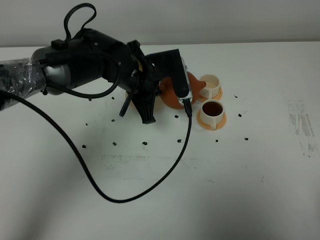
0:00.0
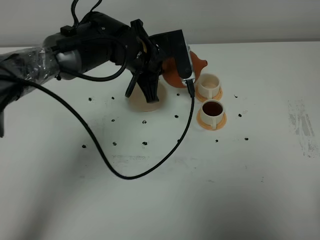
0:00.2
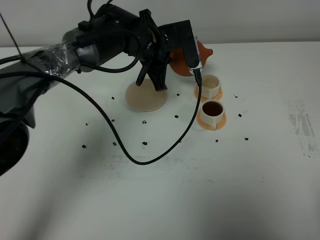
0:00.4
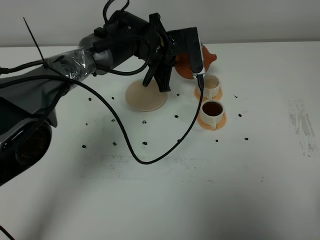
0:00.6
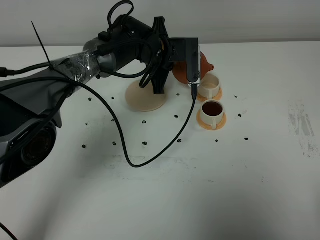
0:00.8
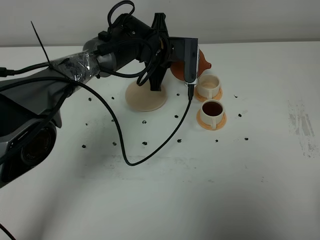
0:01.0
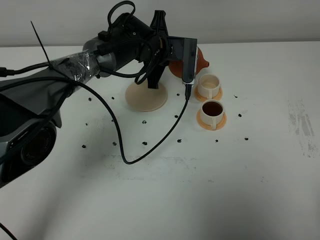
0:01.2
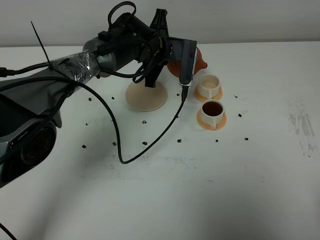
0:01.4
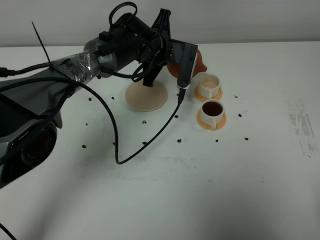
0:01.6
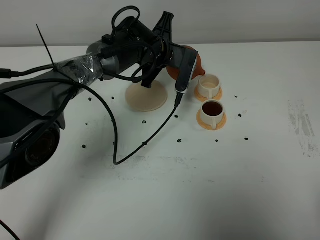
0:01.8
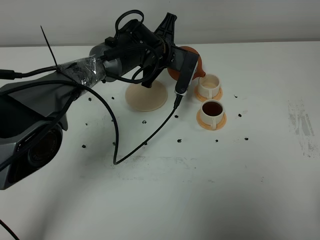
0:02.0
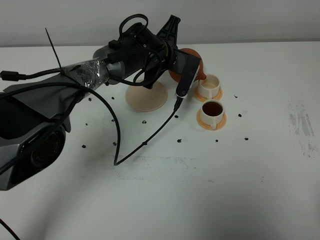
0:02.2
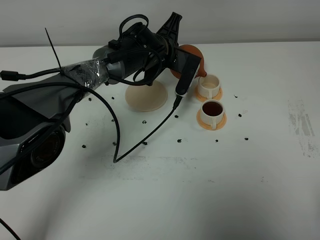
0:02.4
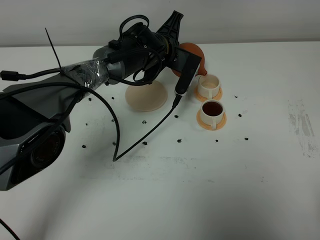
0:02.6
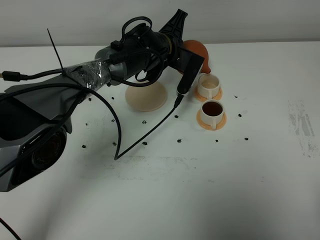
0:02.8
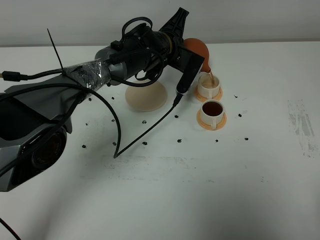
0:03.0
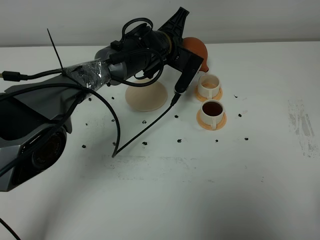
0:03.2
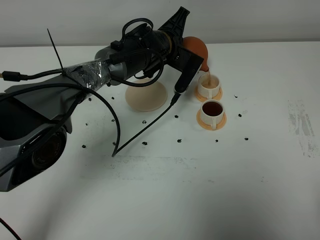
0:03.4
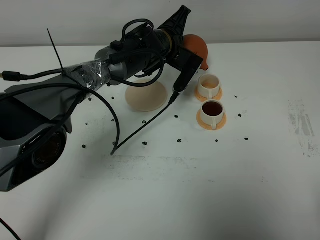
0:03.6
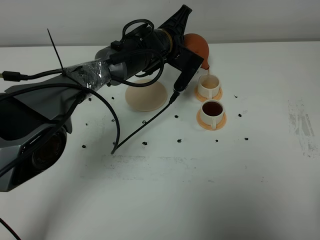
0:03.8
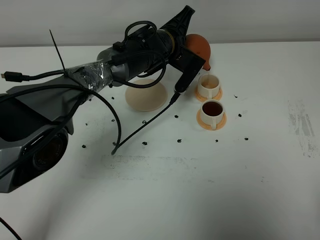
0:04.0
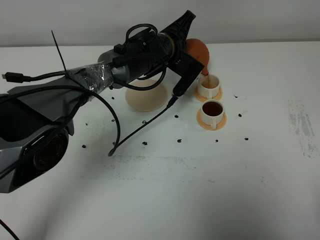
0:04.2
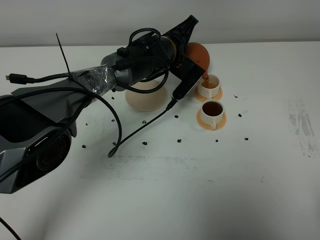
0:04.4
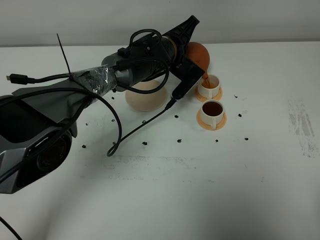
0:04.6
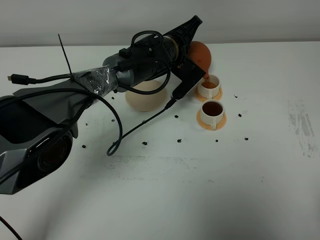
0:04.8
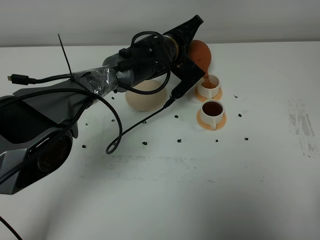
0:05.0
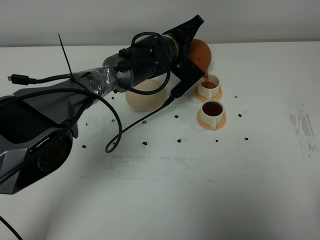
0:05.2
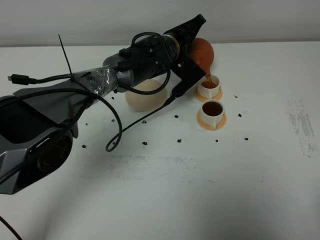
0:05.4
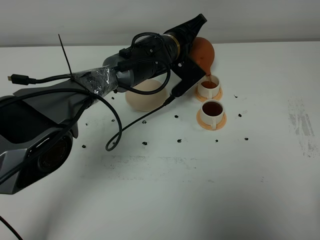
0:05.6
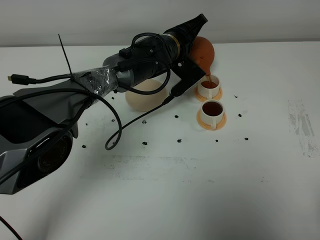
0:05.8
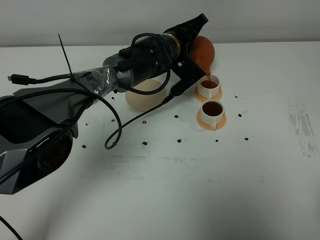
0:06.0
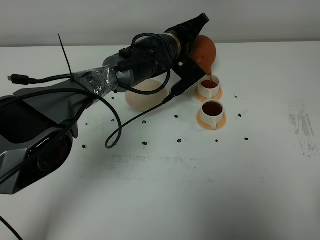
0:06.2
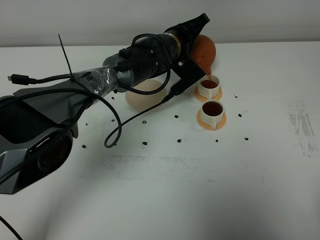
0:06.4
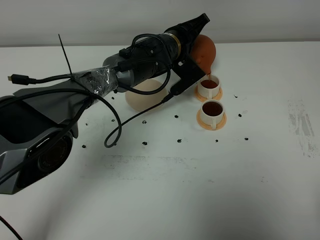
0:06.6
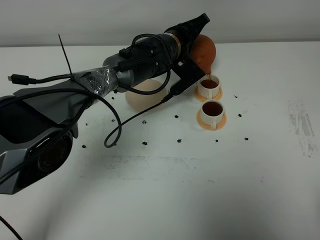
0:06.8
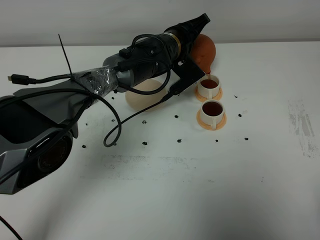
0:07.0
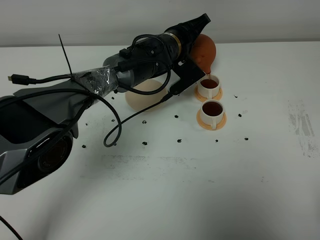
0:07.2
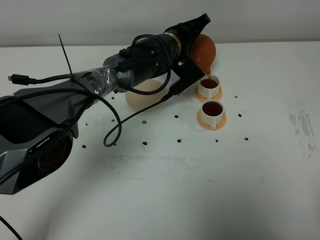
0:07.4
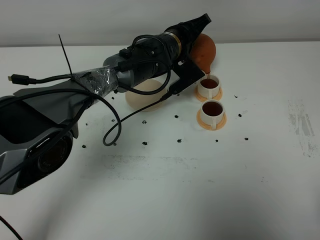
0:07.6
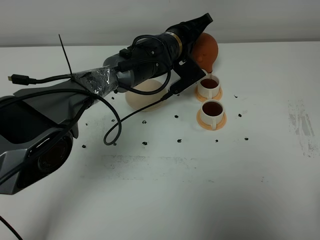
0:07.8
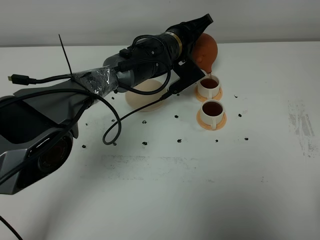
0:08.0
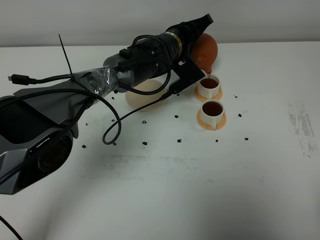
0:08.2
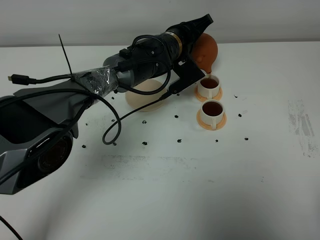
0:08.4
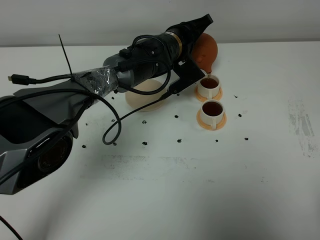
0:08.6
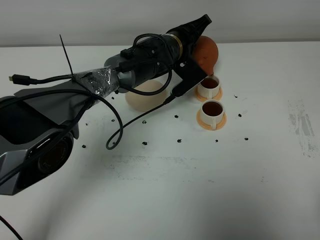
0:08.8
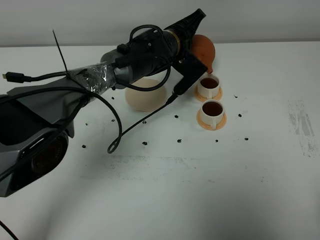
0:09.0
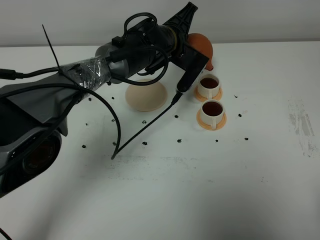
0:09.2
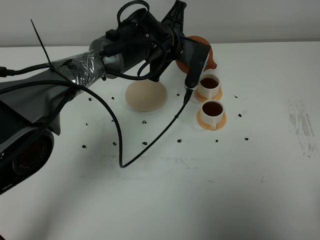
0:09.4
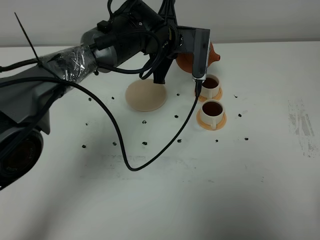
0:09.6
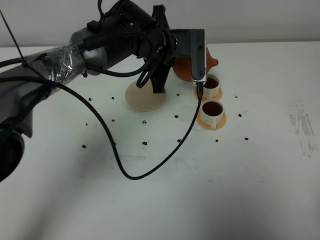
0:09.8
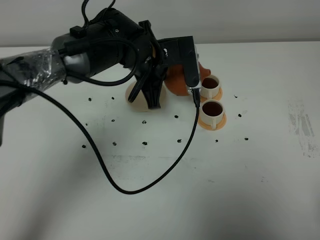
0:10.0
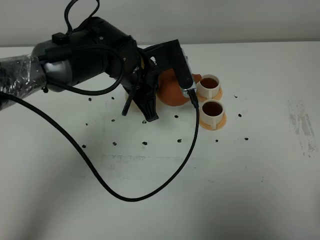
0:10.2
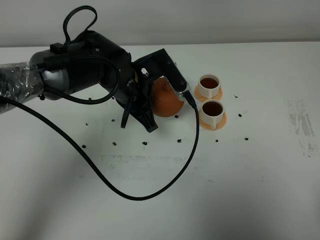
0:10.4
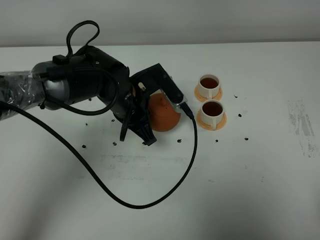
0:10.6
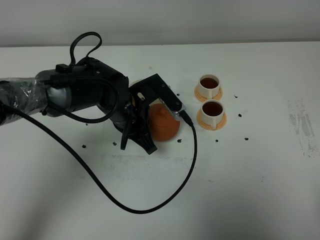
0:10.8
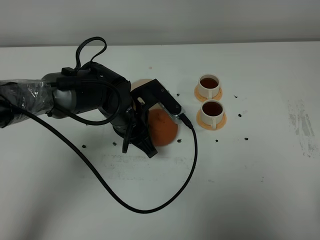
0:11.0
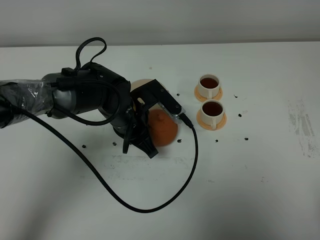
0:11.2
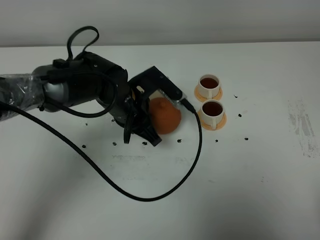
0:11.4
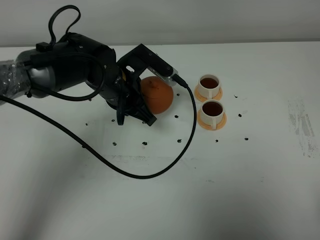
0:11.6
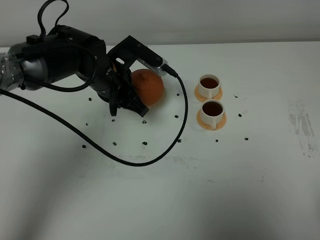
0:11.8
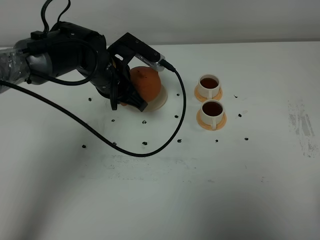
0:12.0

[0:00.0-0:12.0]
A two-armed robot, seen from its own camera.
Task of the whole recording: grasp the brown teapot and pour the tea into the two white teacups one by one, put the brown teapot back in its original place.
Step, 0:00.0 to 0:09.0: Pour tea into the teacup with the left gripper.
0:00.0 to 0:01.6: The left gripper heads forward, covering approximately 10 cm.
0:01.6 to 0:03.0: The grippers make only small movements.
0:03.0 to 0:04.4: The grippers make only small movements.
0:04.4 to 0:06.0: The grippers move only a little.
0:06.0 to 0:07.6: The two grippers keep their place.
0:07.6 to 0:09.0: There are only small adjustments of the grippers.
0:09.0 to 0:10.4: The left gripper travels backward and to the left by about 15 cm.
0:10.4 to 0:12.0: The left gripper shifts by some 5 cm.

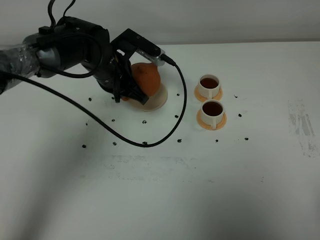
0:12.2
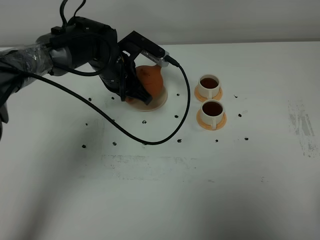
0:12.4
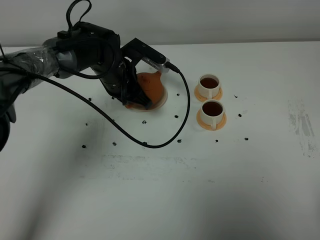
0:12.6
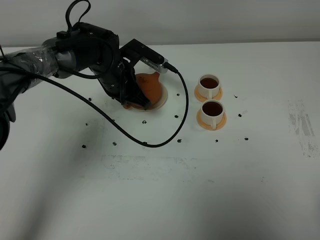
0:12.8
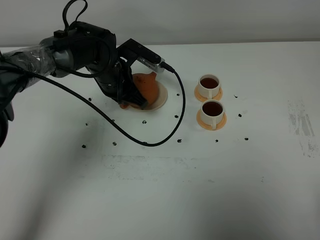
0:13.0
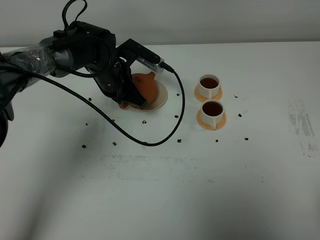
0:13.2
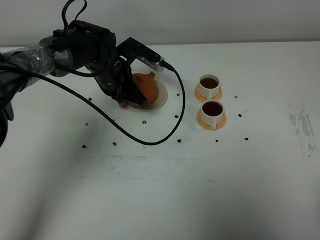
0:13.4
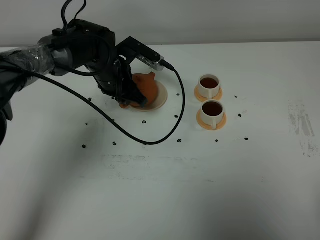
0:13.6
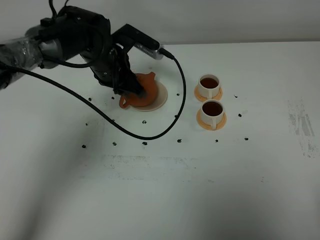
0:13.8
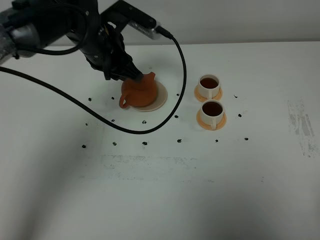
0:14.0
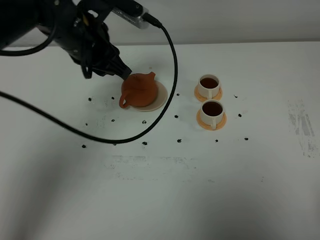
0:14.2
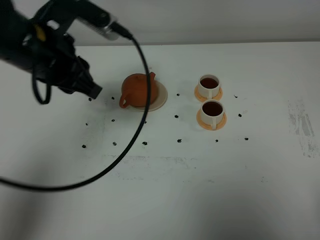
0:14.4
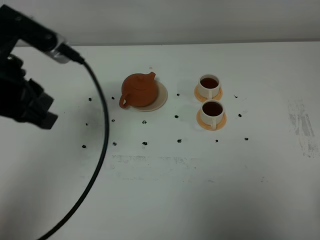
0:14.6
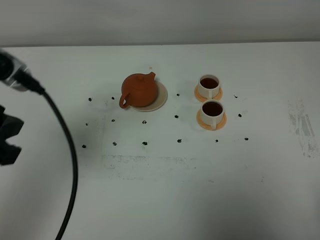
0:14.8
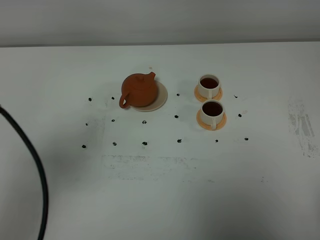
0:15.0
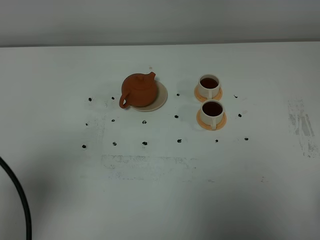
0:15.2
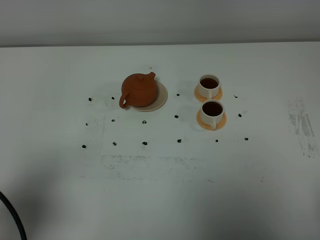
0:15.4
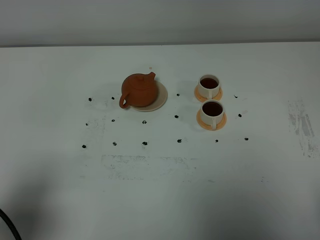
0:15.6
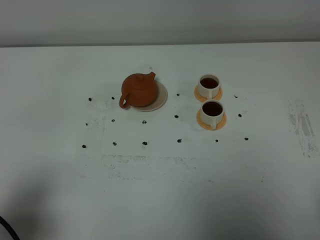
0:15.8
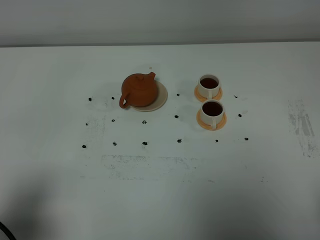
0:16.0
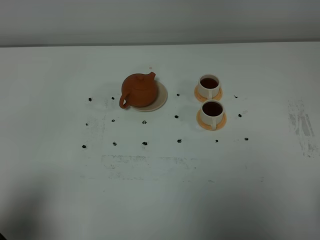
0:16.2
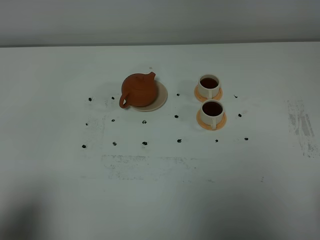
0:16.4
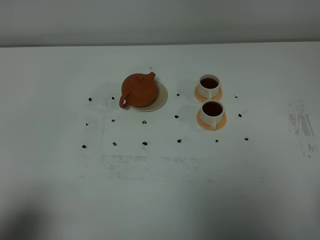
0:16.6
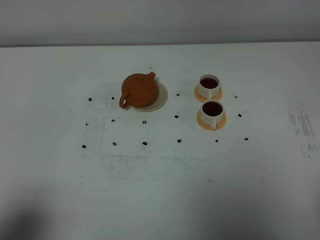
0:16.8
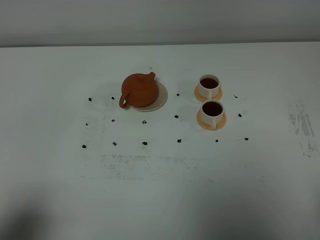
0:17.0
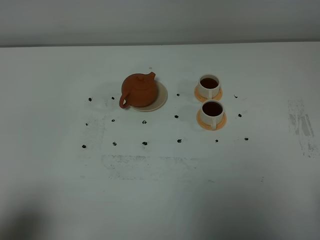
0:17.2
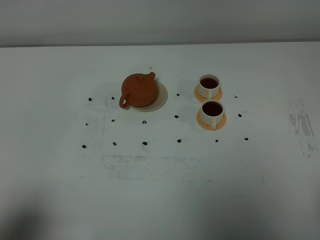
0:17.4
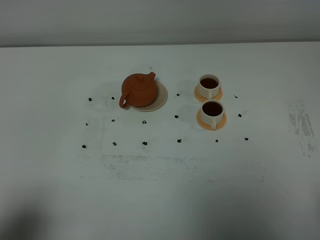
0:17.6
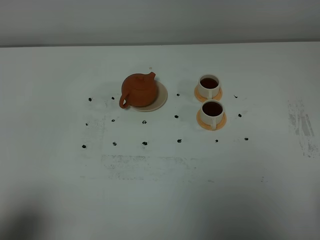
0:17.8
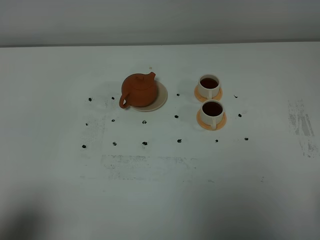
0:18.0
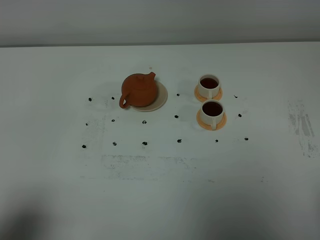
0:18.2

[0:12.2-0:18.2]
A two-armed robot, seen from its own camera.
Task of the whole recording: grasp the brown teapot and pour the tea into the two white teacups one by one, put the brown teapot back in its original place.
0:12.2 to 0:13.8: The left gripper opens its fingers.
0:13.8 to 0:15.2: The left gripper moves backward and to the left, about 35 cm.
0:15.2 to 0:16.6: The left gripper shifts about 10 cm backward and downward.
0:16.6 to 0:18.2: Both grippers stay put.

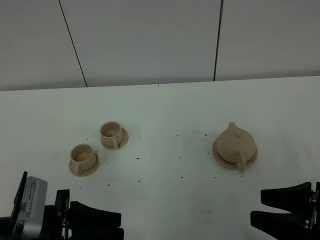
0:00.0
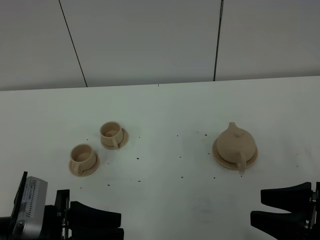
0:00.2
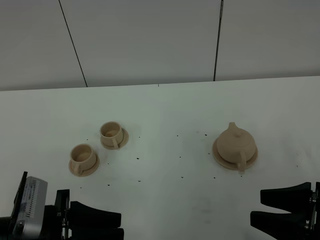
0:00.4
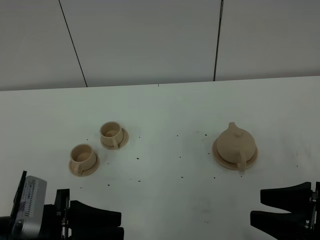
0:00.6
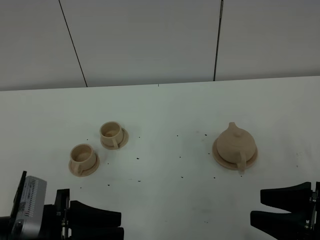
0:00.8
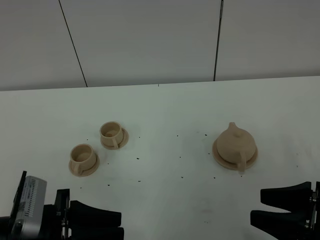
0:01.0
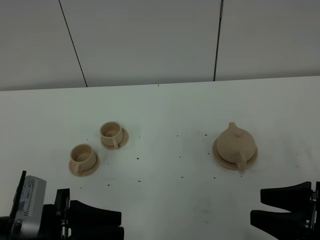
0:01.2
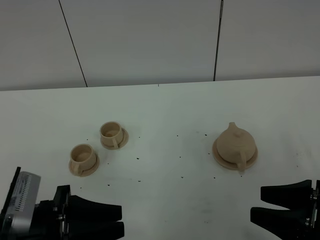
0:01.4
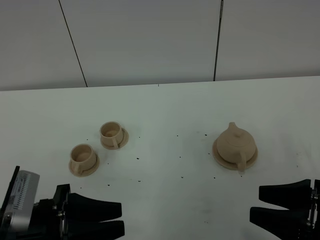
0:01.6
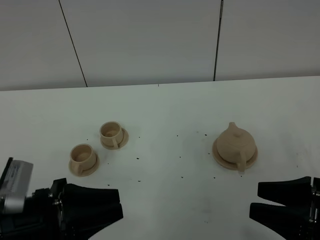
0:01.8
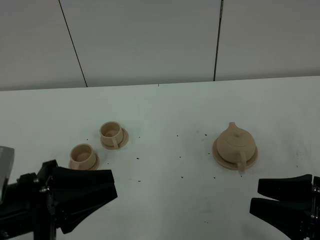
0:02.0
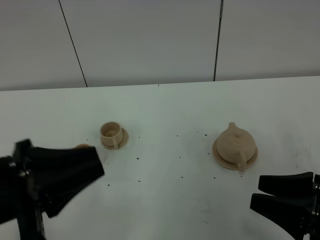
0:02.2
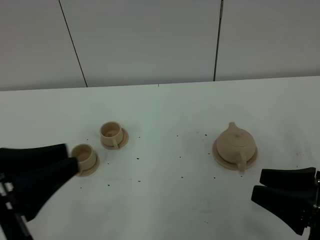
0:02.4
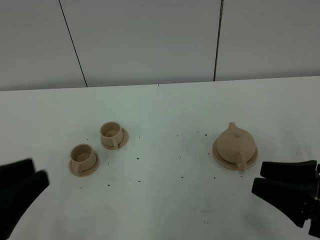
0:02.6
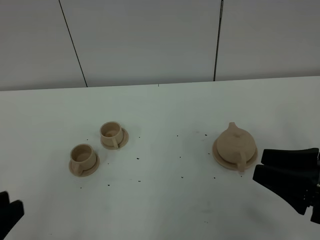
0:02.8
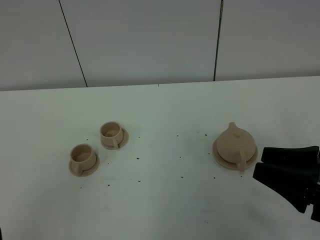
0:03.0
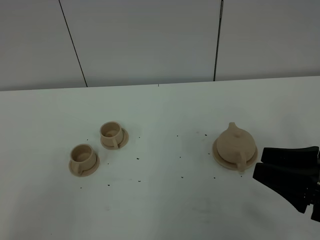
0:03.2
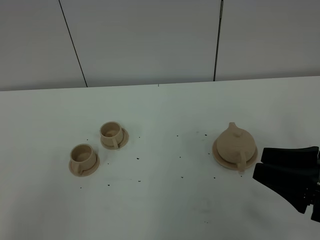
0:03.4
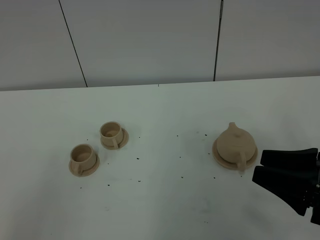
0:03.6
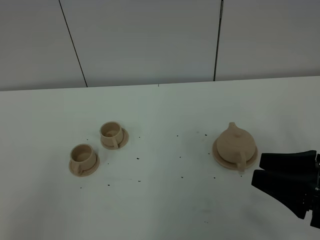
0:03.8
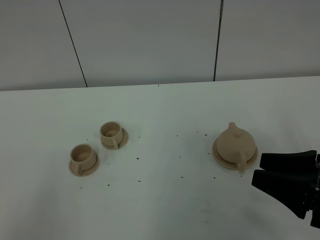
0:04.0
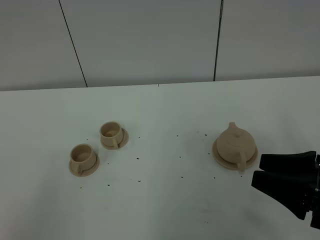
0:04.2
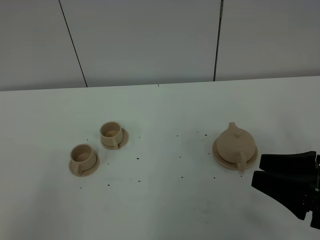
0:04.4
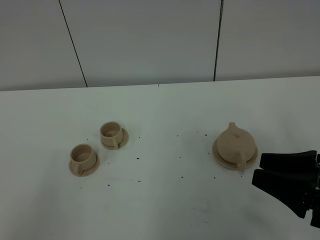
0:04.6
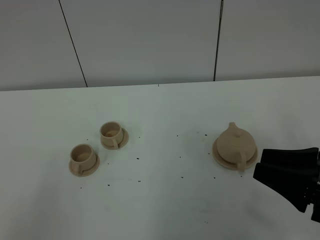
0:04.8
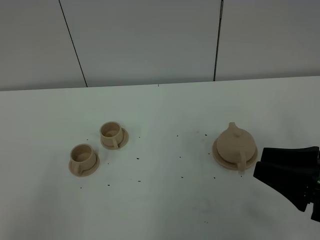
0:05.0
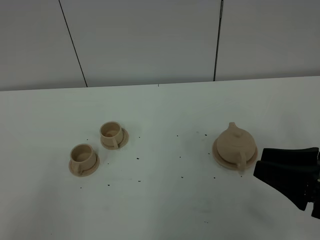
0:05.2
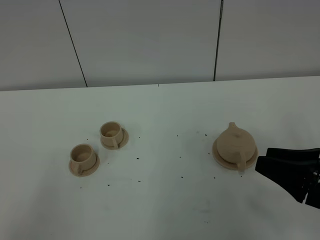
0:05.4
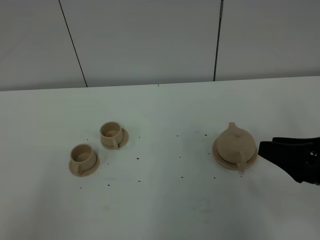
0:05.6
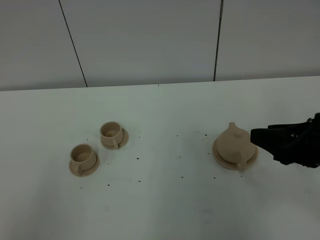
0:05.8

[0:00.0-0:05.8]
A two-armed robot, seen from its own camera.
Task of the whole recording: grasp the brown teapot and pour the tea into the two brown teacups one by one, put the brown teapot back in its original place.
0:00.0 to 0:01.4: The two grippers keep their place.
0:01.4 to 0:02.8: The left gripper moves upward, backward and to the left, roughly 15 cm, and closes its fingers.
0:02.8 to 0:04.4: The left gripper moves some 5 cm.
0:04.4 to 0:05.8: The right gripper goes roughly 5 cm forward.
